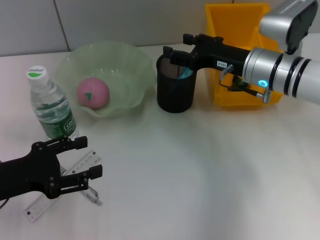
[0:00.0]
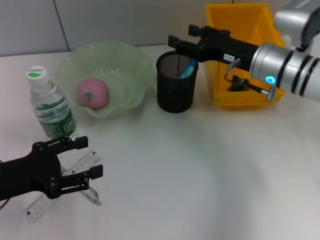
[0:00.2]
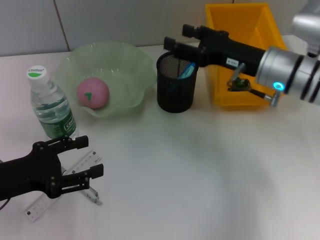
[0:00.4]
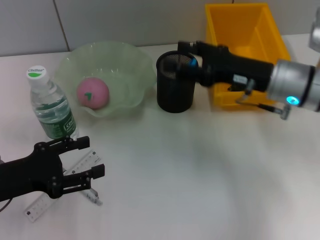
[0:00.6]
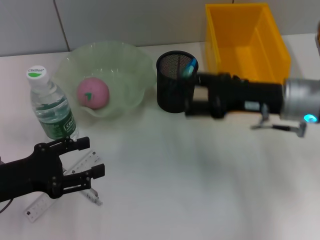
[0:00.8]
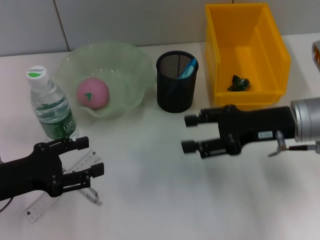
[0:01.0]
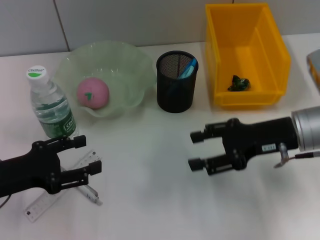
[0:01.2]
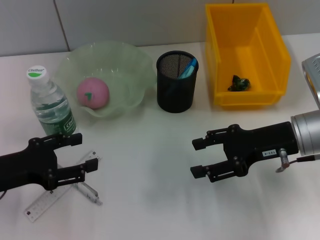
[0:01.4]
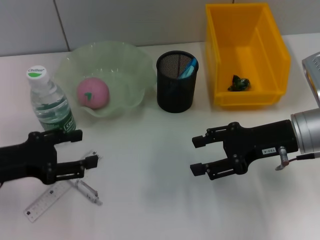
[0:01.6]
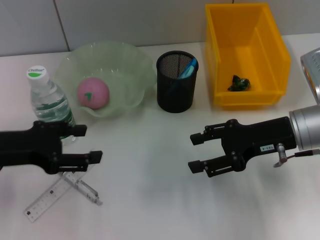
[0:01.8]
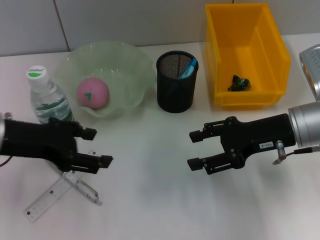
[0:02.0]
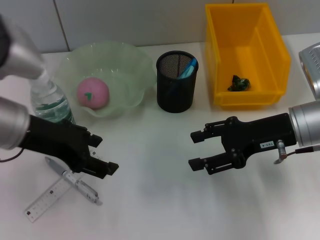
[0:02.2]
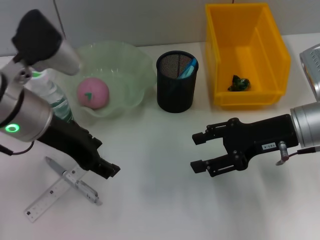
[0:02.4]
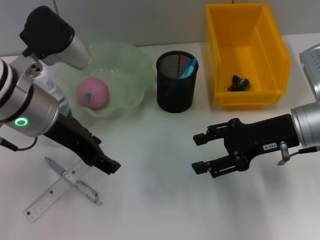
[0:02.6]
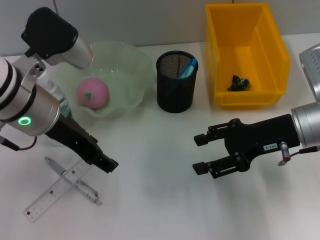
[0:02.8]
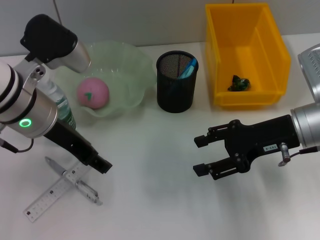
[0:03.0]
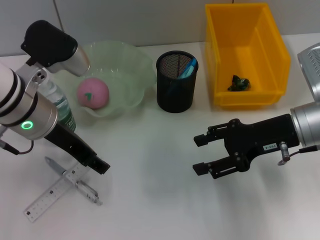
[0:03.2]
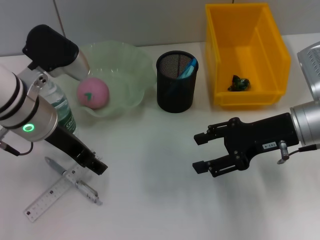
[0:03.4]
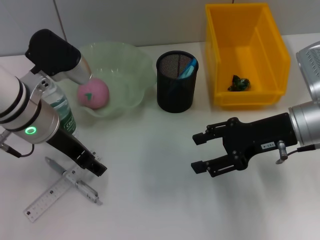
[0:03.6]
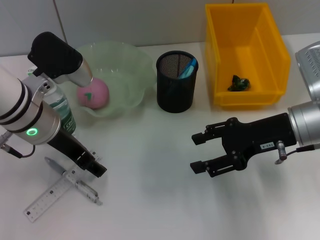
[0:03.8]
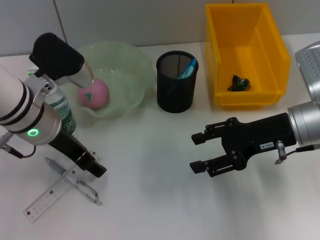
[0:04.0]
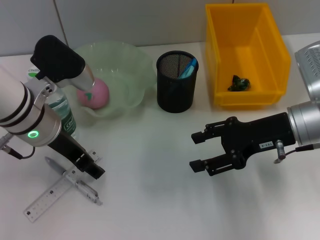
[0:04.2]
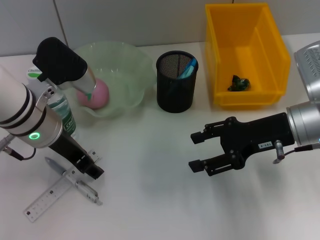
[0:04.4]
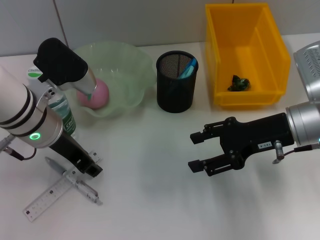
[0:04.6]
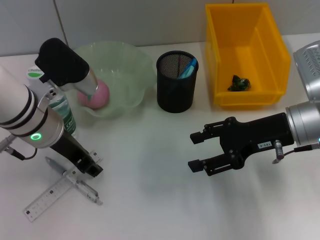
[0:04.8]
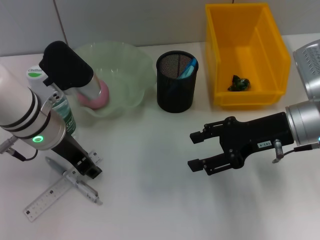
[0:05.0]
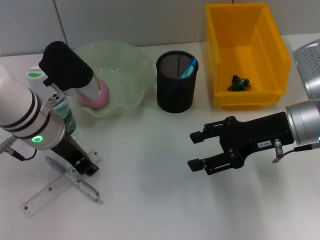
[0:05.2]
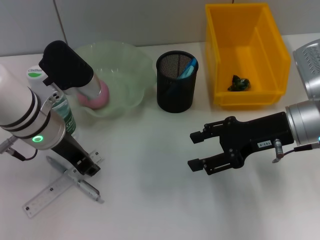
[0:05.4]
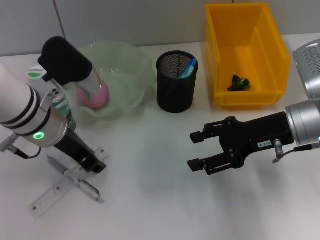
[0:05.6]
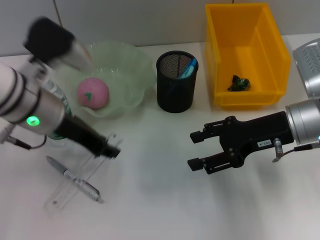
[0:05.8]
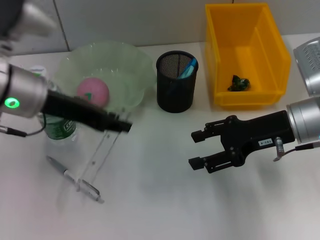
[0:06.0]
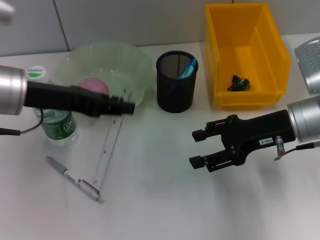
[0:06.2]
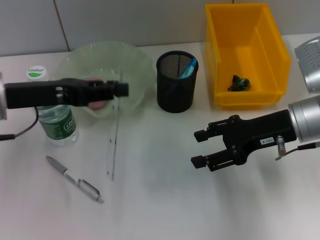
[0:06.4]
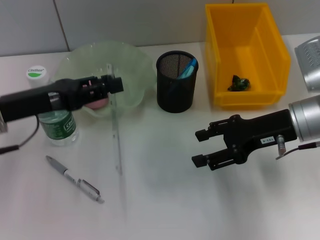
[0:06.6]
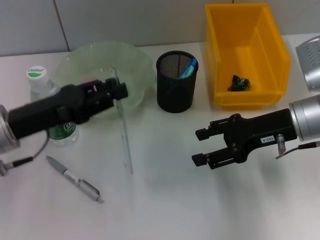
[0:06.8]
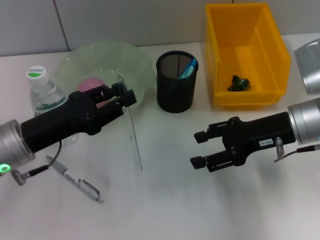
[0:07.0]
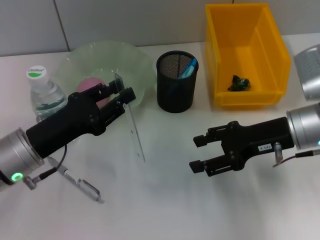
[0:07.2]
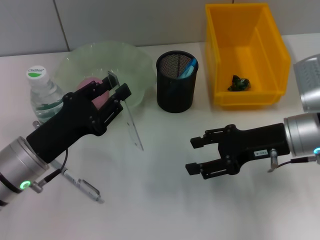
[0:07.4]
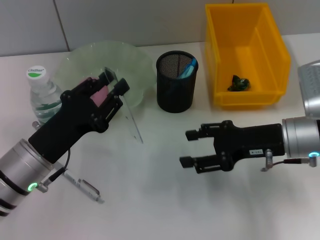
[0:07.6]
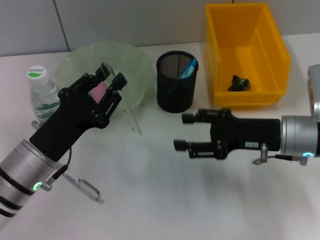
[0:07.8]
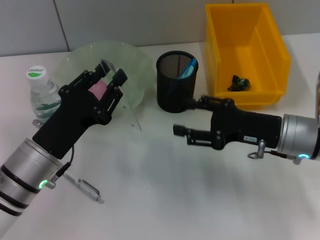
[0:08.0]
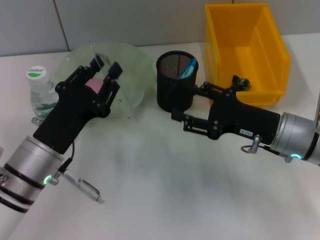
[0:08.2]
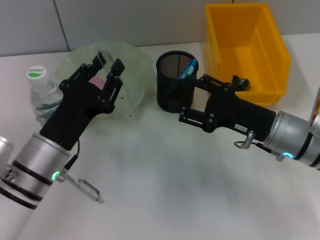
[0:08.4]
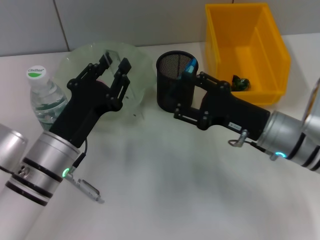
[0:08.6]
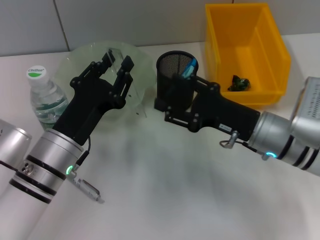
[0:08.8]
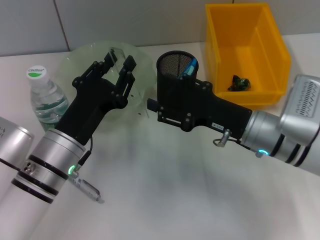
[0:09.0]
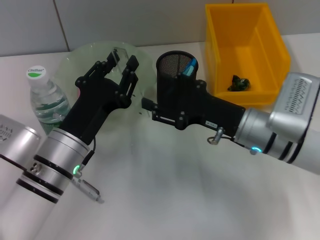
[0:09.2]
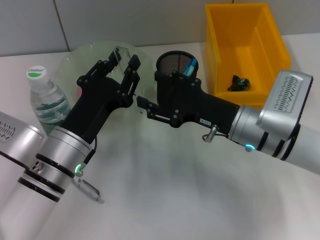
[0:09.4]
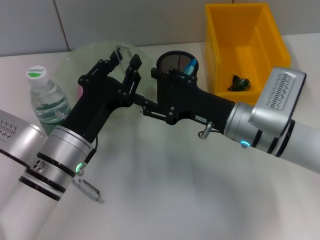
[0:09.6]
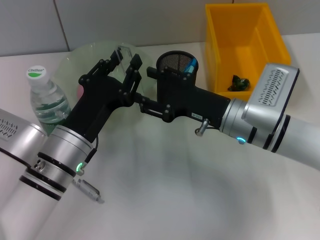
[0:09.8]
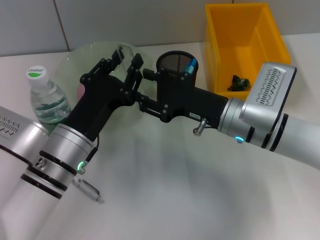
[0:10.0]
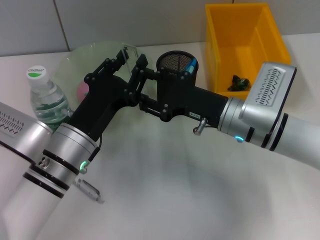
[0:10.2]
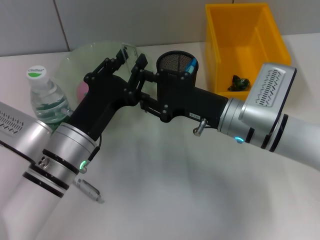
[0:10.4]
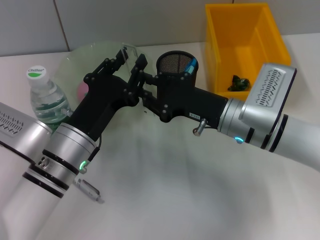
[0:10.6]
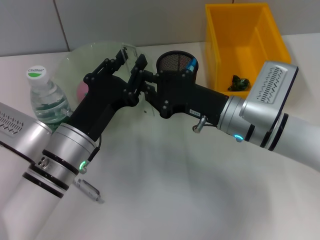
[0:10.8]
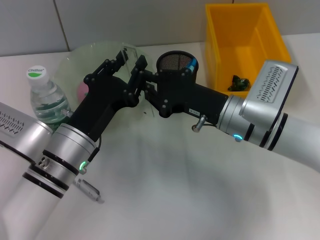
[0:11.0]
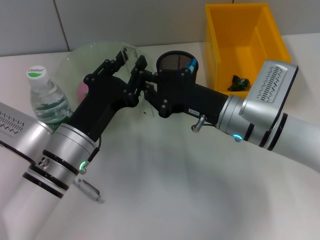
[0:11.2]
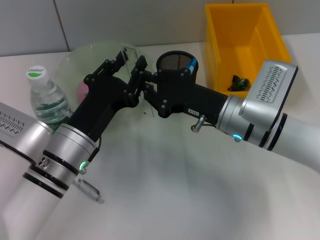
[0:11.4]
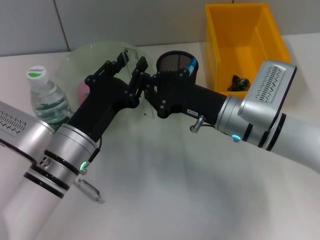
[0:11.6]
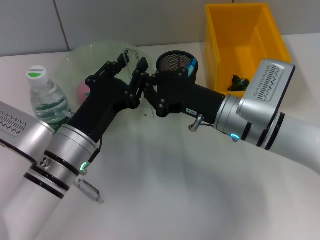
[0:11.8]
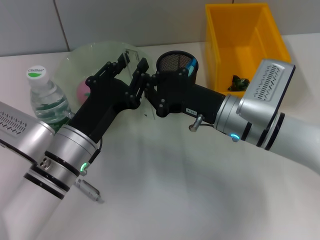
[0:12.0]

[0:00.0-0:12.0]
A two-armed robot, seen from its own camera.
Step, 0:00.0 to 0:05.4: Grab the ruler with the left hand.
0:00.0 to 0:01.6: The right gripper heads backward, covering roughly 10 cm.
0:01.6 to 0:03.0: The left gripper travels to the right, upward and forward by some 15 cm.
0:03.0 to 0:04.4: The grippers make only small movements.
0:04.4 to 0:06.0: The left gripper ends up roughly 5 cm from where it was, and closes.
0:06.0 to 0:07.6: The left gripper moves downward and backward, about 15 cm.
0:07.6 to 0:09.0: The left gripper ends up approximately 5 cm from where it was; the right gripper shifts some 5 cm to the left.
0:10.4 to 0:12.0: The right gripper closes.

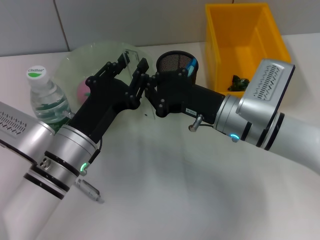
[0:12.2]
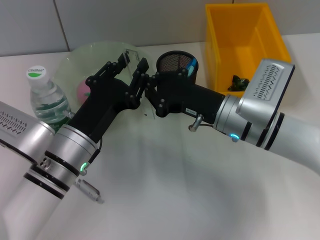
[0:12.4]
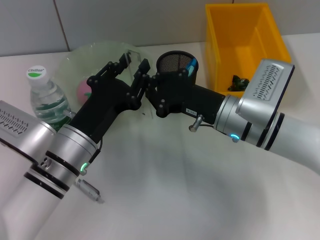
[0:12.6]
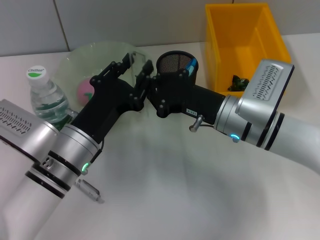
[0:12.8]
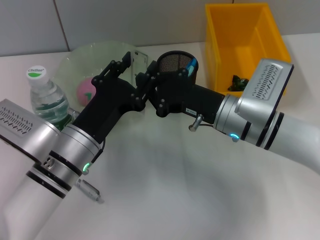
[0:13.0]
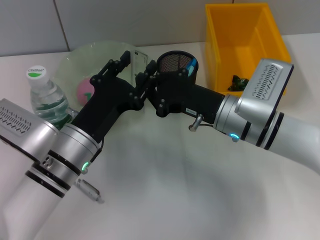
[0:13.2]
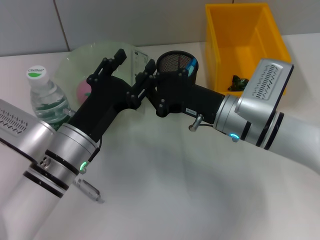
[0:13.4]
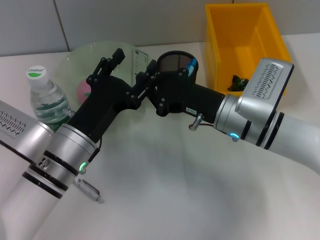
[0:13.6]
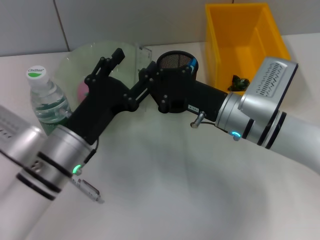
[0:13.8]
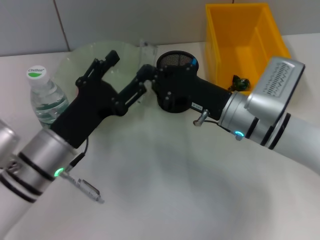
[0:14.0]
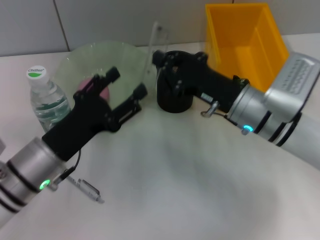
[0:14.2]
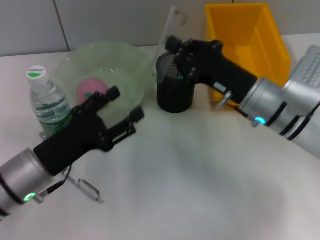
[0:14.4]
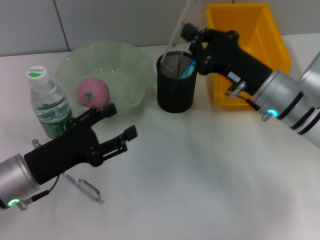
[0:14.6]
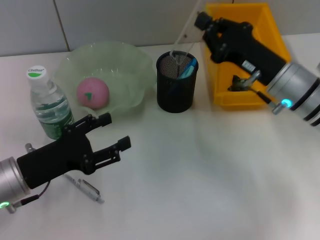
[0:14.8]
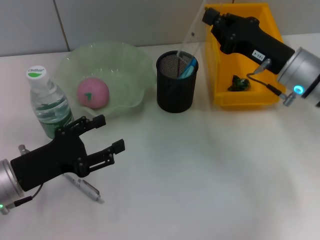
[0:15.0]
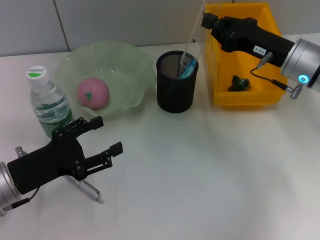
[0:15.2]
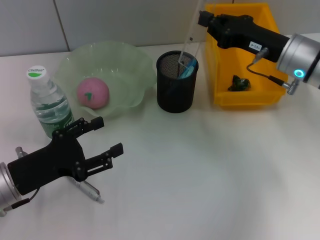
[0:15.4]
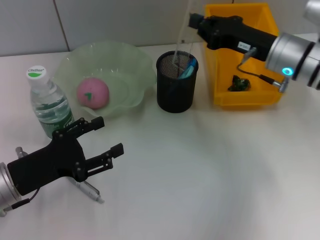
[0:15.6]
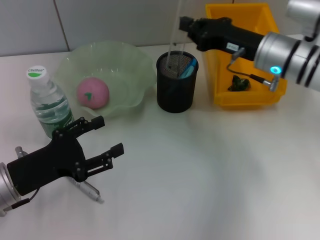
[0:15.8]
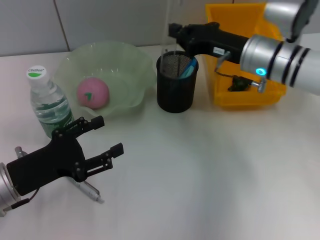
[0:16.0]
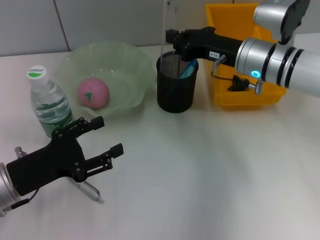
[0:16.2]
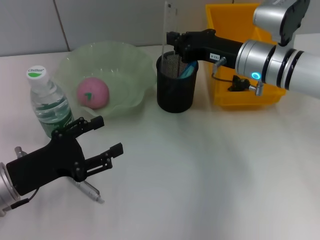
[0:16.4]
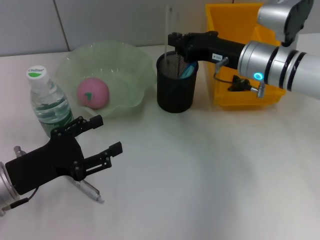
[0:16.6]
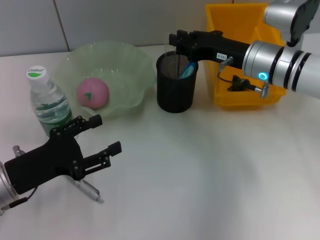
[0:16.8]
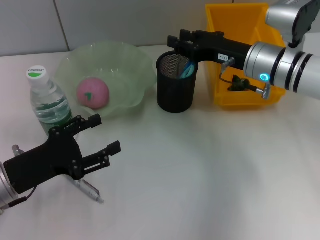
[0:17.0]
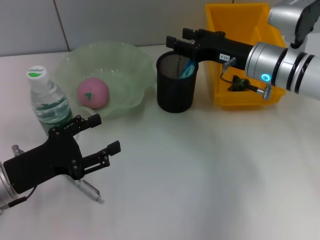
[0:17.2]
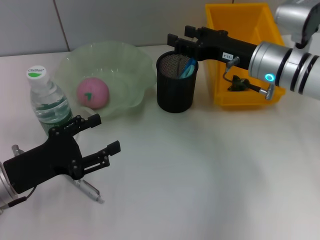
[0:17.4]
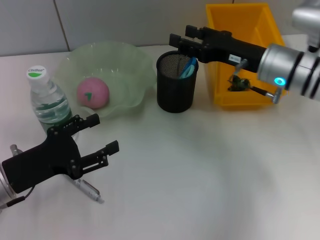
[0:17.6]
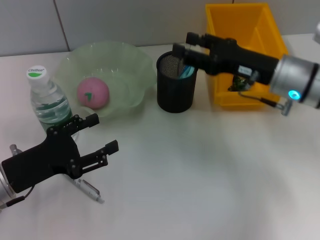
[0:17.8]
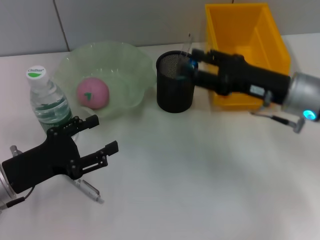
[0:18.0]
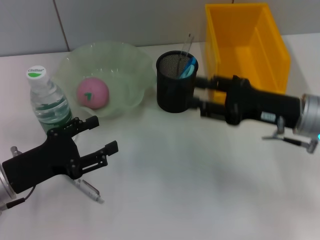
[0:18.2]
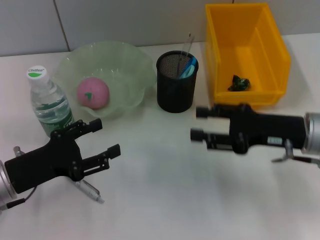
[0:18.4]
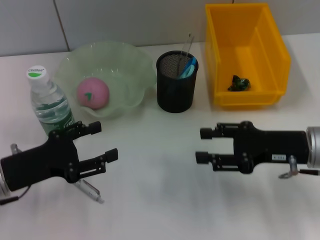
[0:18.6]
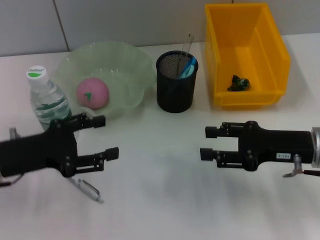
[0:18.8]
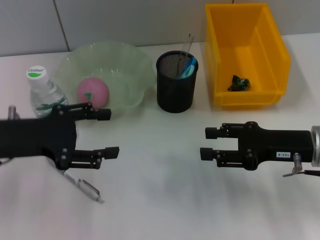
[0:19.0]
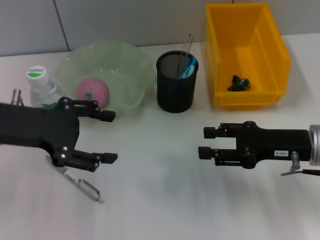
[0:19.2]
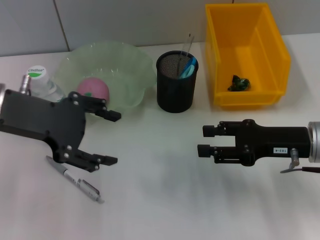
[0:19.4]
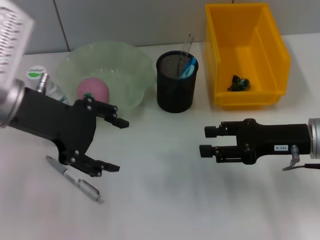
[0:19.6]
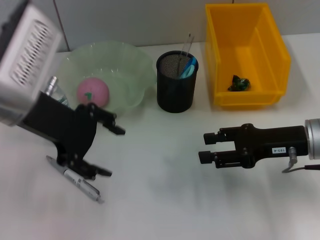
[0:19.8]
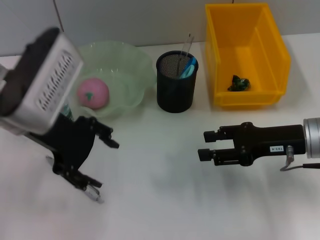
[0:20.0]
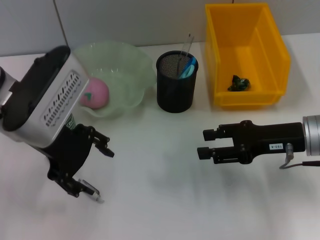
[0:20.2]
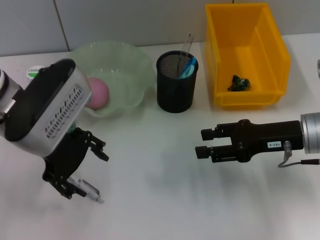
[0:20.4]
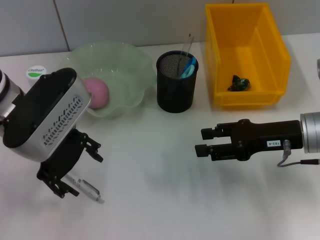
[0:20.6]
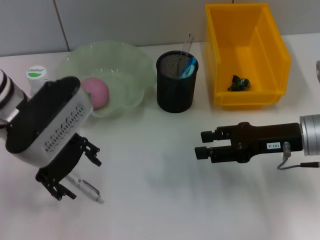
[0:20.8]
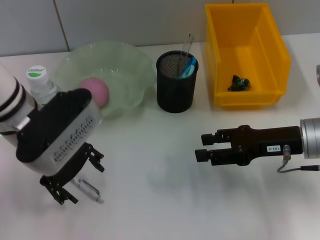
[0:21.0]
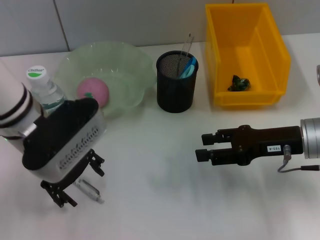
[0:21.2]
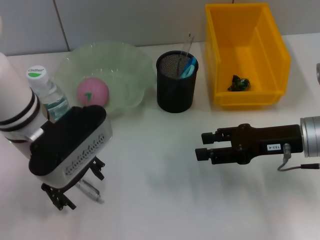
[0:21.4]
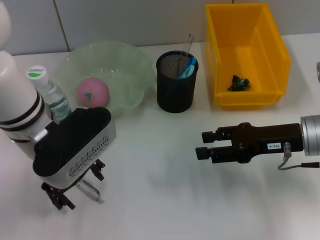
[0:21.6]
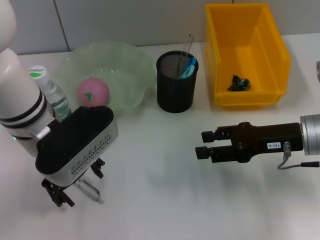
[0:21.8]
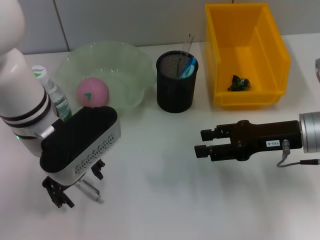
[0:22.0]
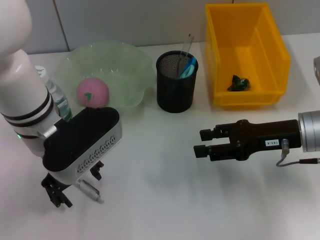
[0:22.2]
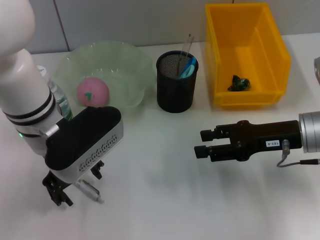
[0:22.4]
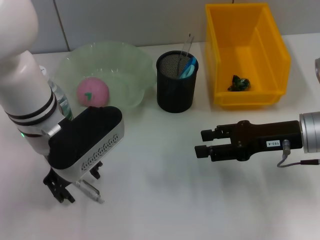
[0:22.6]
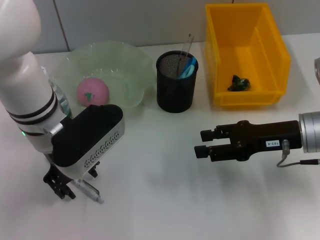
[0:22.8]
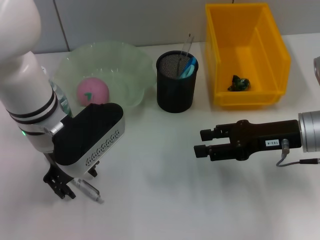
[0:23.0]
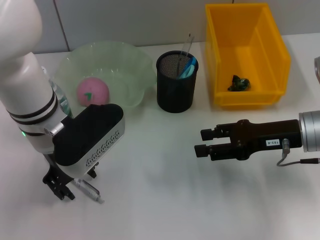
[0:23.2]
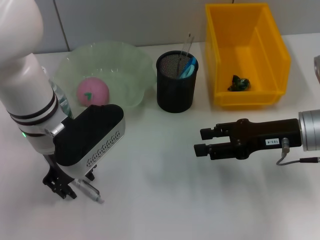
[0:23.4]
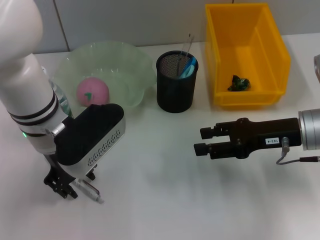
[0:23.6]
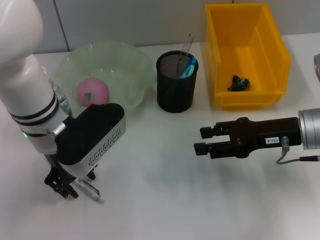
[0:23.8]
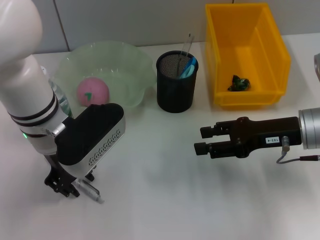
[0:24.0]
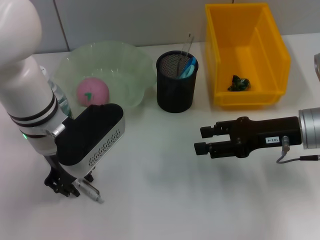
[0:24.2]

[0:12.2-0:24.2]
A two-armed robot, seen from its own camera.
Step, 0:13.6 to 0:17.0: Place the ruler into the pen holder with the right hand.
0:12.2 to 0:13.8: The left gripper opens.
0:13.8 to 0:15.2: The right gripper goes about 10 cm to the right and upward; the left gripper is displaced to the left by roughly 10 cm.
0:15.2 to 0:16.6: The right gripper travels to the left by some 5 cm.
0:16.6 to 0:18.2: The right gripper goes about 10 cm backward and to the right, and opens its fingers.
0:18.2 to 0:19.8: The left gripper goes approximately 20 cm upward, forward and to the right.
0:19.8 to 0:21.2: The left gripper shifts some 5 cm downward.
0:21.2 to 0:22.6: The grippers move only a little.
0:22.6 to 0:24.2: The left gripper closes.
